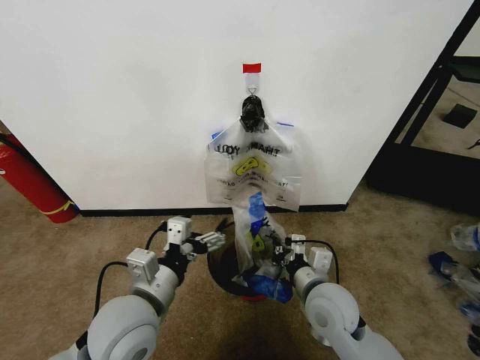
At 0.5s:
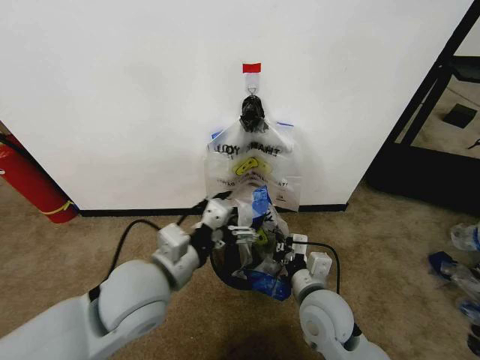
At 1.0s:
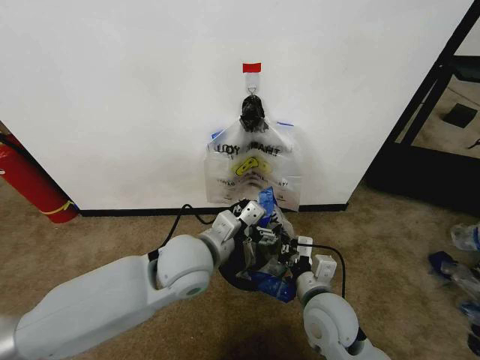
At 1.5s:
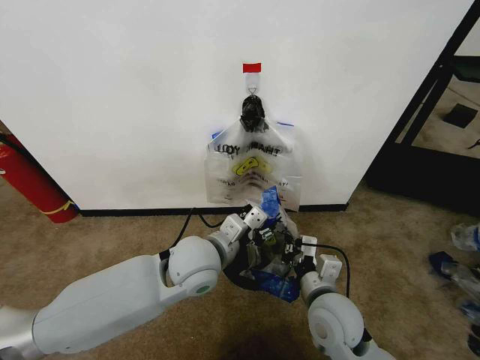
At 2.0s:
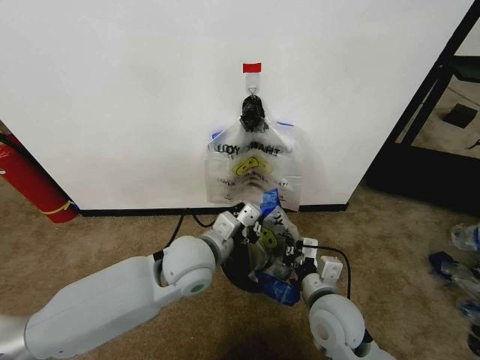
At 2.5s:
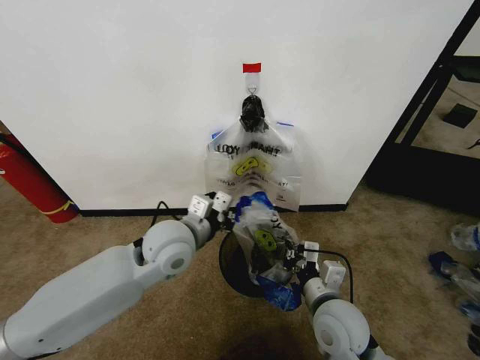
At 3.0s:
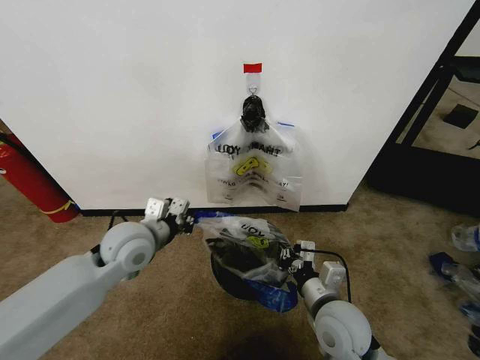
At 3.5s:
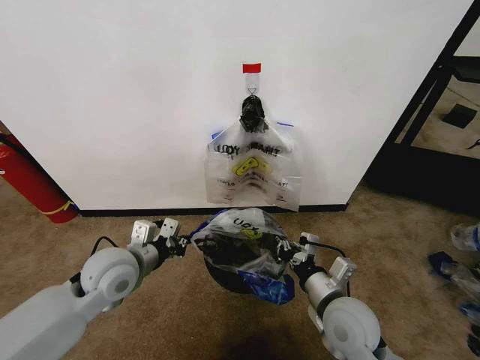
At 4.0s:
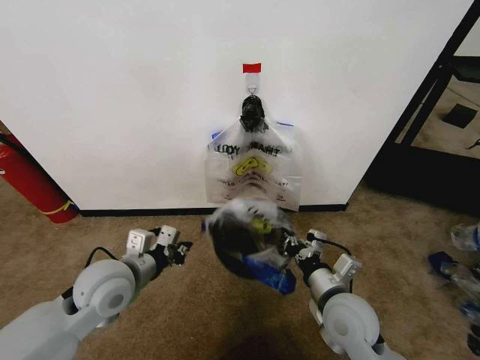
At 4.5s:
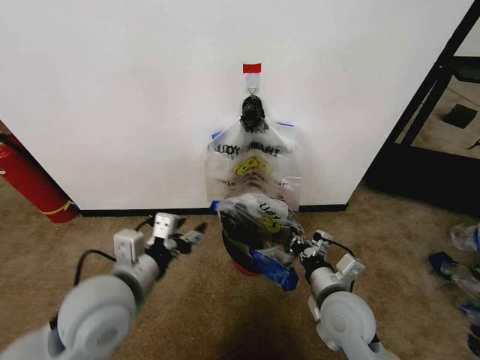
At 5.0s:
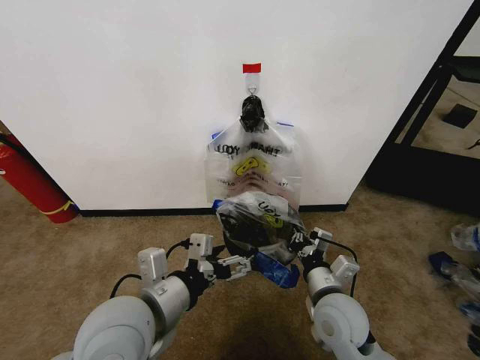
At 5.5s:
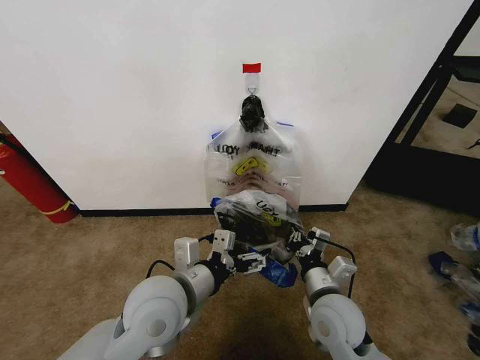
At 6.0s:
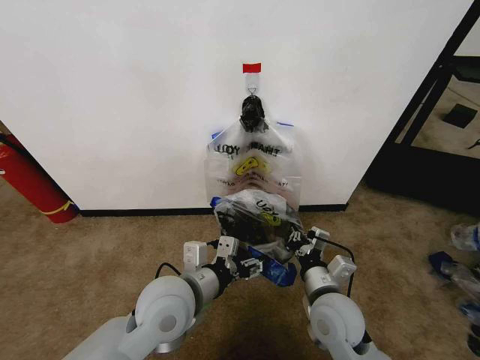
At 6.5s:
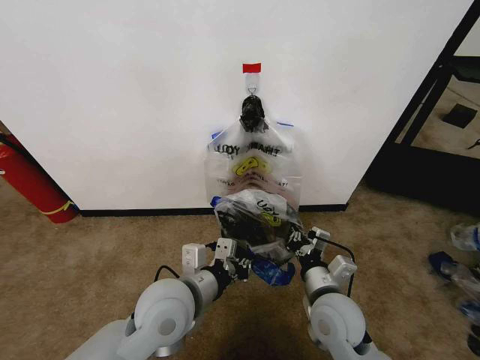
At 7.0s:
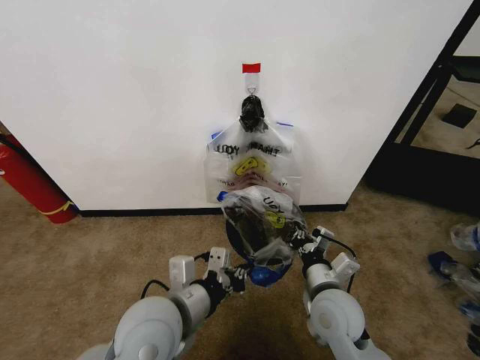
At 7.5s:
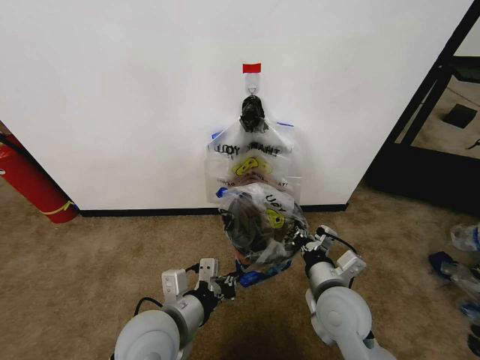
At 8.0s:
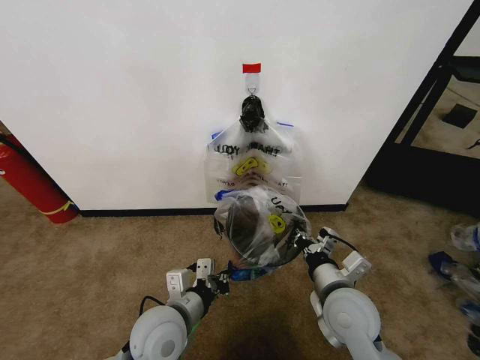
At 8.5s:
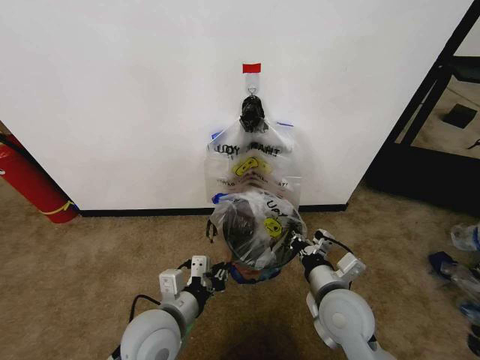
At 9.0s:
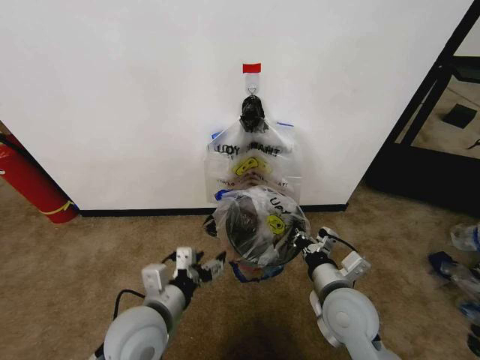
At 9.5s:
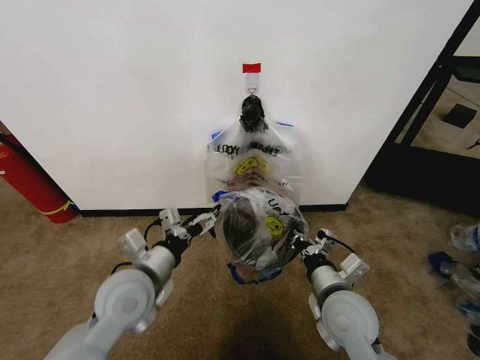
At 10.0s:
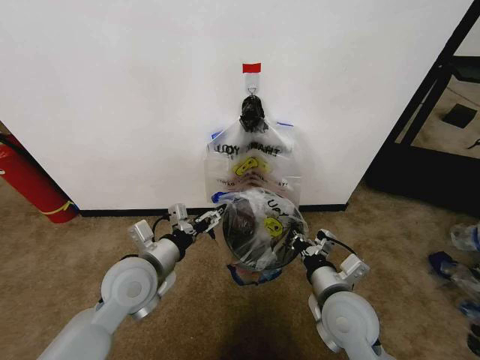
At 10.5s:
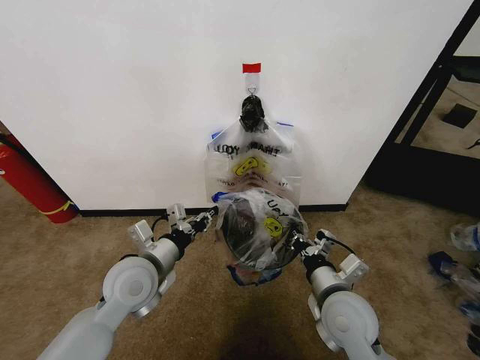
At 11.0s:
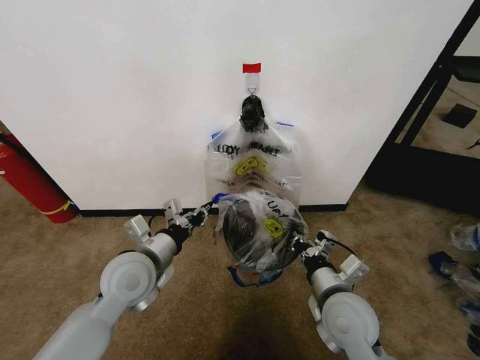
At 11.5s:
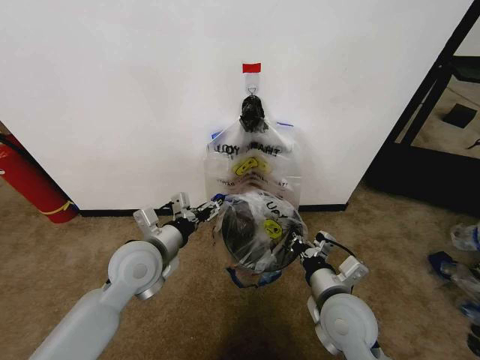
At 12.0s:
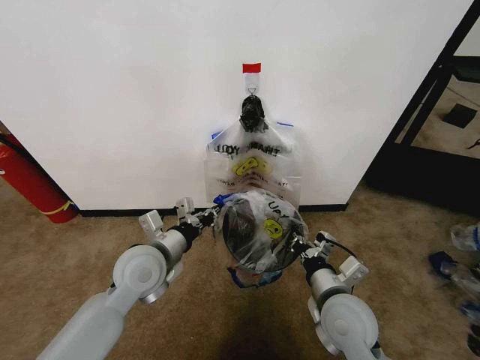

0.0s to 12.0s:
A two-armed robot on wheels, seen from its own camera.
Task of the whole recording: Pick up the garbage bag from the wall and place it over the trash bin.
0.0s to 2.0s: The left gripper heads forward and to the right, covering about 15 cm, and closes its fingers.
2.0s to 4.0s: The left gripper goes about 15 cm to the left.
4.0s to 6.0s: The left gripper is displaced to the right by roughly 10 cm, and opens its fingers.
6.0s to 8.0s: The left gripper travels downward by about 5 cm, and closes.
8.0s to 10.0s: The left gripper heads forward, to the left and upward, covering some 10 cm, and opens.
10.0s to 12.0s: The left gripper closes up.

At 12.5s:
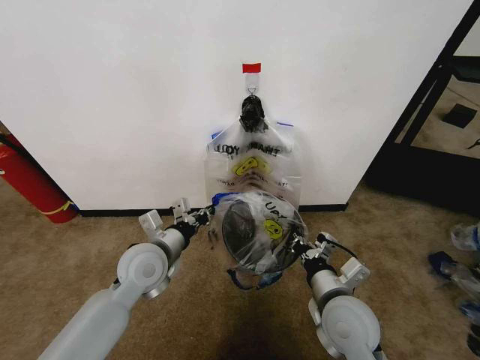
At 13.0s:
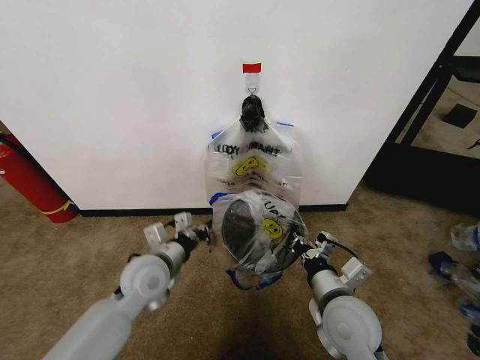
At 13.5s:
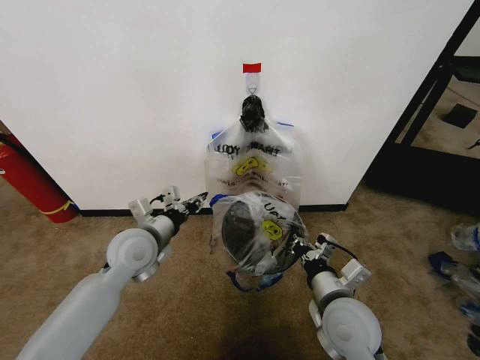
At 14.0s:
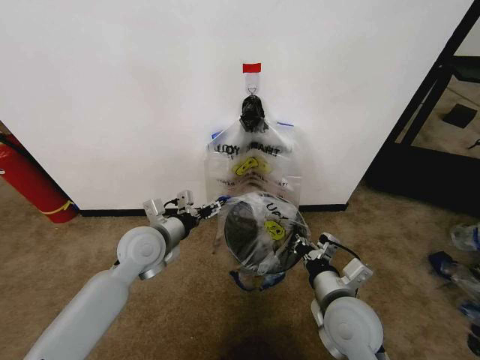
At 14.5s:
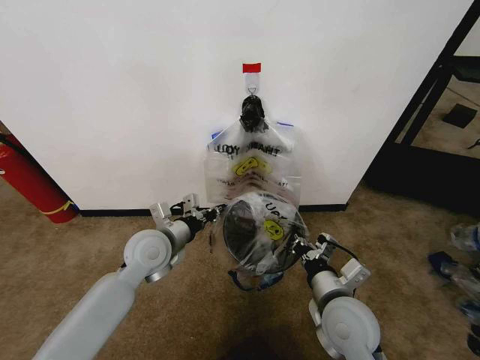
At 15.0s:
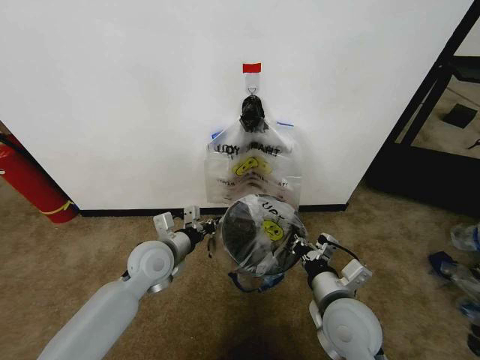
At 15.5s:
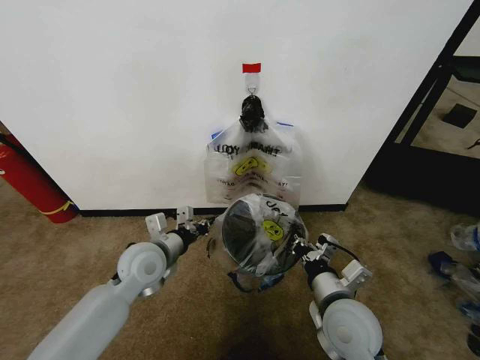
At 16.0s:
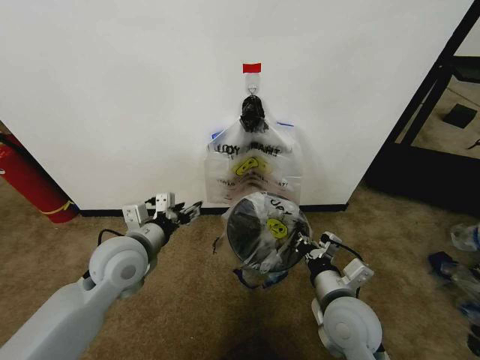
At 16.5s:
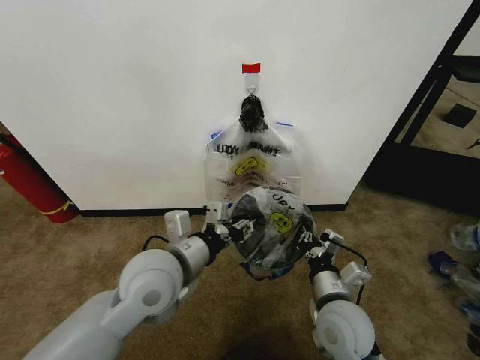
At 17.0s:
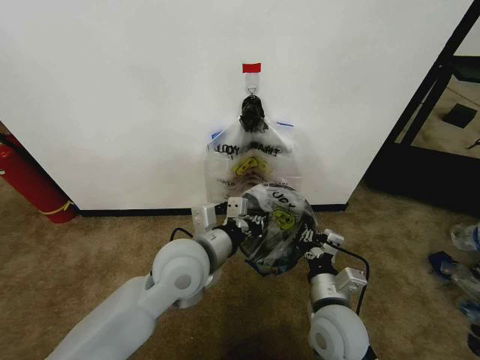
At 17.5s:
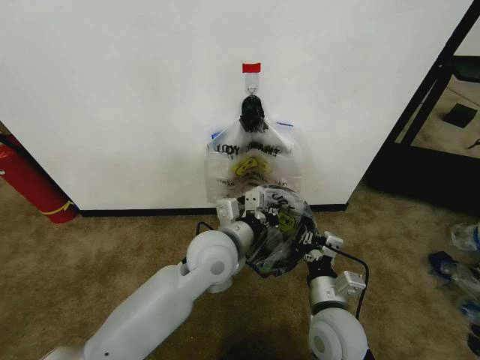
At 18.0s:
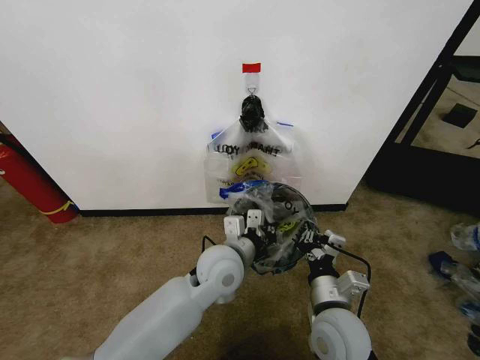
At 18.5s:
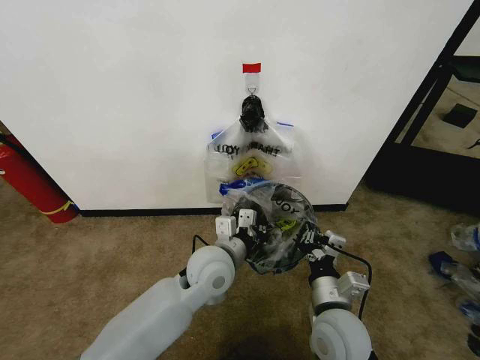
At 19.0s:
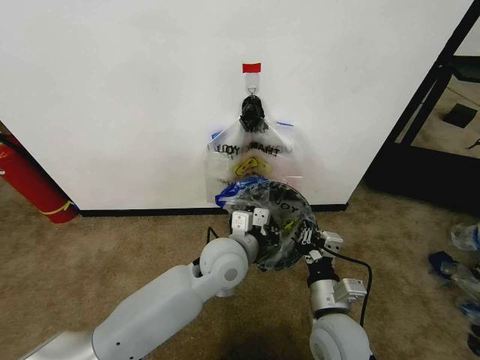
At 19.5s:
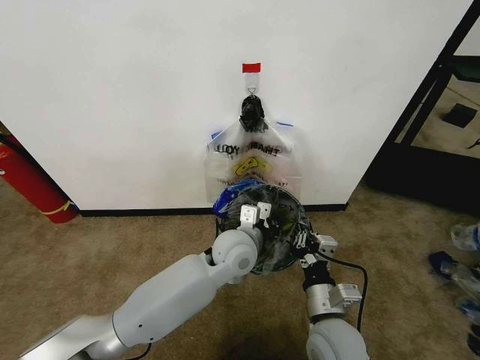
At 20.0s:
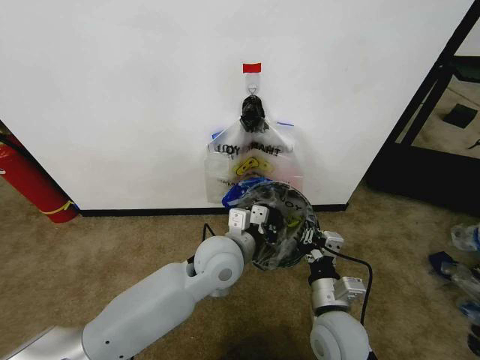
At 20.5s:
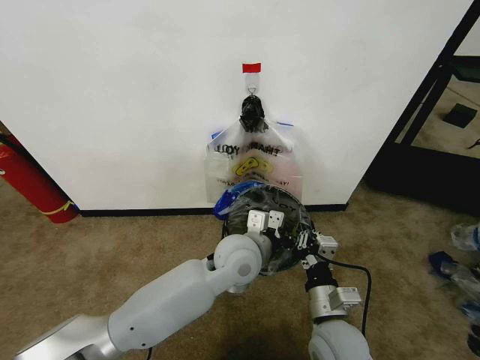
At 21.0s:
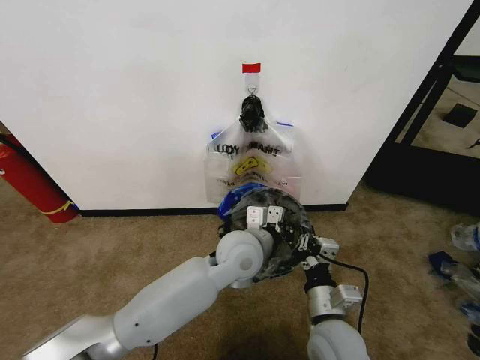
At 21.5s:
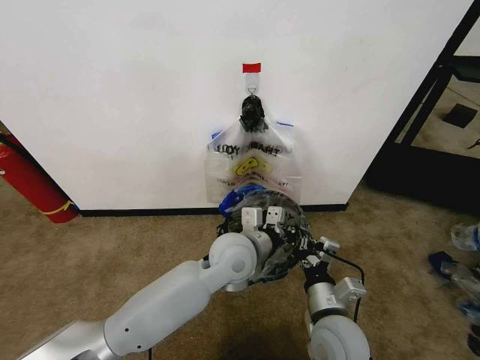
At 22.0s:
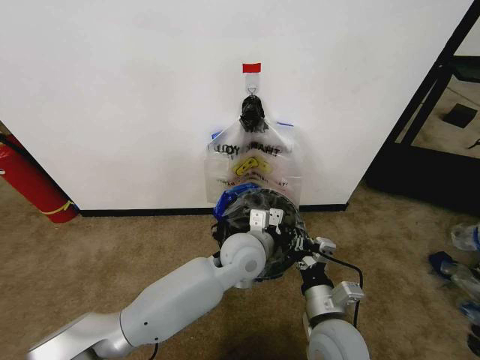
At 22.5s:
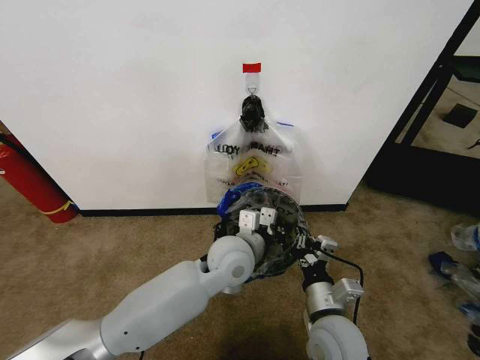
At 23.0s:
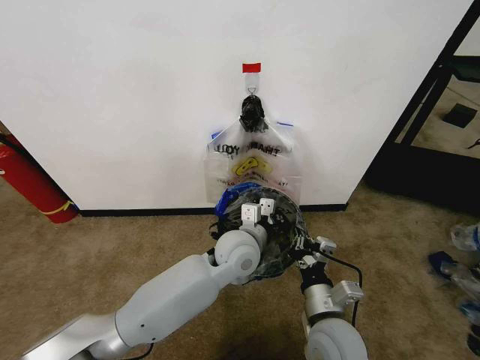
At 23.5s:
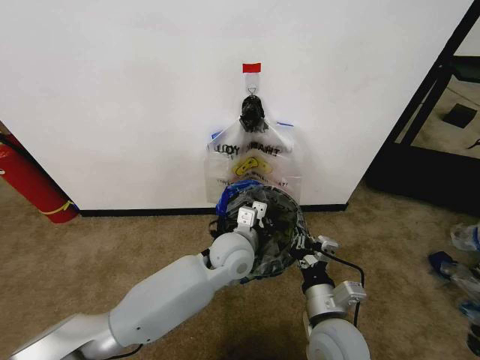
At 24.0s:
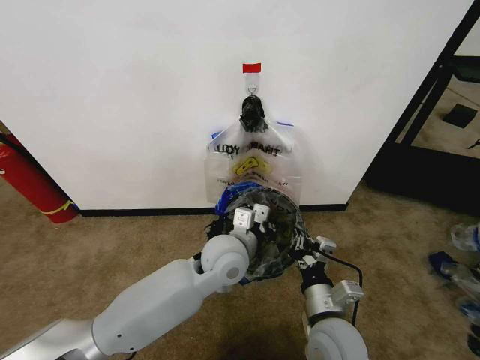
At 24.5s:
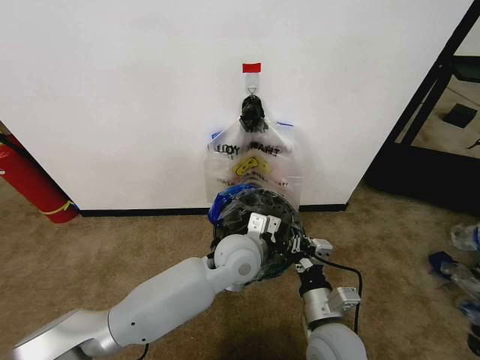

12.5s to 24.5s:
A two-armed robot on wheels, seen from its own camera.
Task of the whole recording: Pick up the garbage bag from the wall and place it over the trash bin.
12.5s to 14.5s: The left gripper opens, then closes once more.
14.5s to 16.5s: The left gripper moves backward, upward and to the right, some 15 cm.
16.5s to 18.5s: The left gripper heads to the right, downward and forward, covering about 10 cm.
18.5s to 20.5s: The left gripper goes some 5 cm to the right.
22.5s to 24.5s: The grippers stay close to where they were, moving slightly.

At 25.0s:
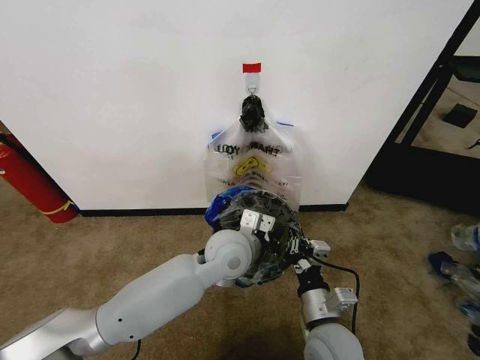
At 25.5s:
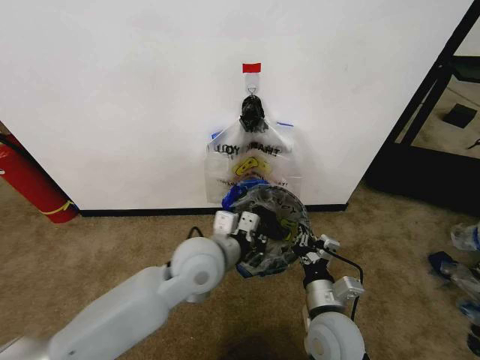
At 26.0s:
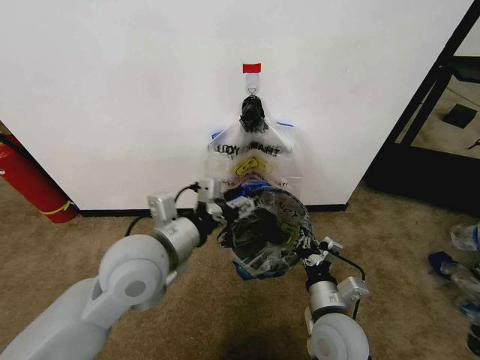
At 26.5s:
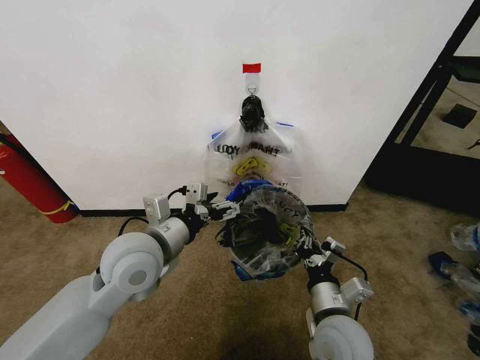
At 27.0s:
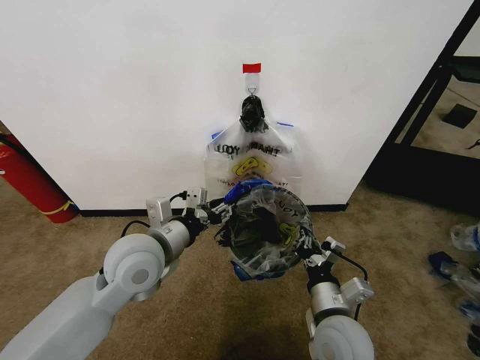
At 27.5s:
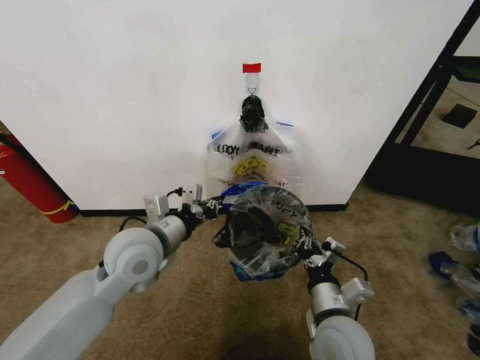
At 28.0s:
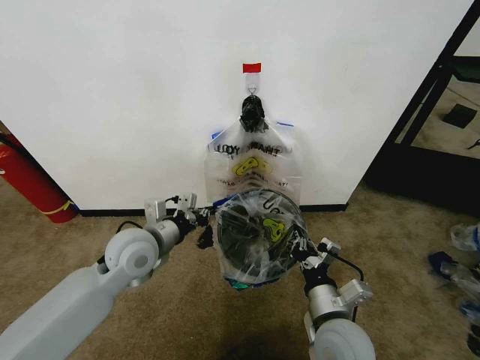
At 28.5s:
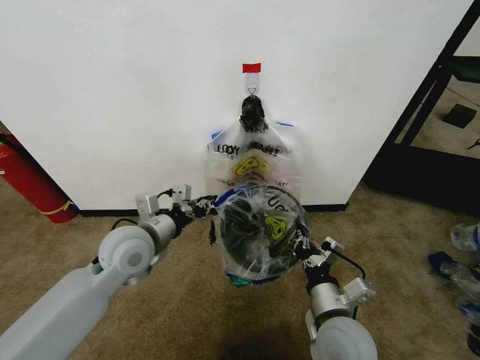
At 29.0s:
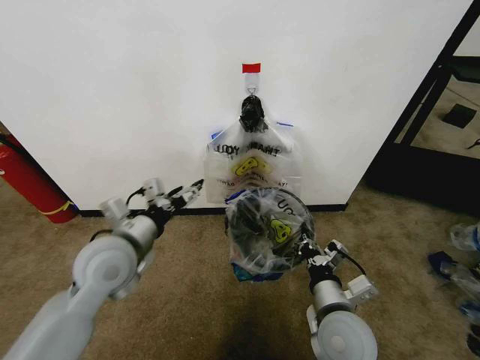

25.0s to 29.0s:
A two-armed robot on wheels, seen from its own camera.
Task of the whole recording: Pick up the garbage bag from the wall and place it over the trash bin.
25.0s to 27.0s: The left gripper heads to the left, covering about 15 cm, and opens up.
27.0s to 29.0s: The left gripper shifts some 5 cm to the left, and opens up.
